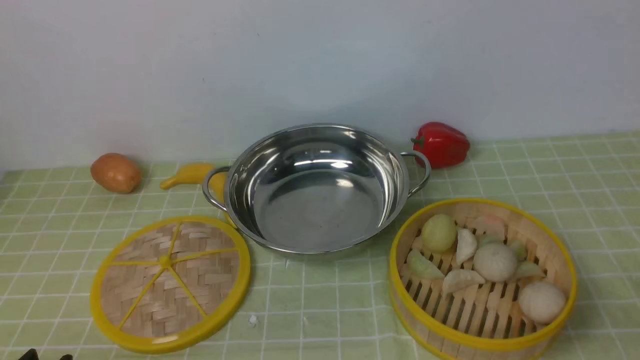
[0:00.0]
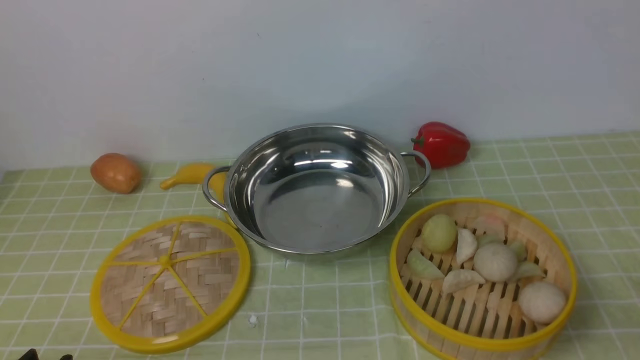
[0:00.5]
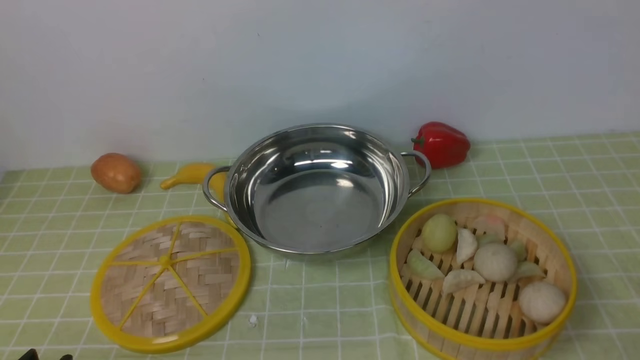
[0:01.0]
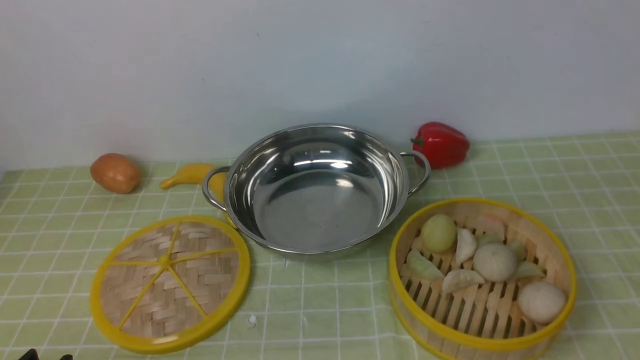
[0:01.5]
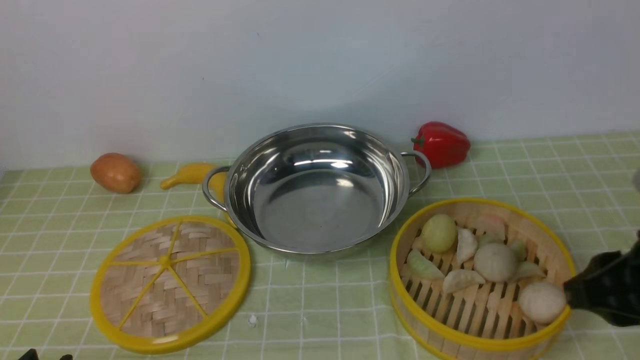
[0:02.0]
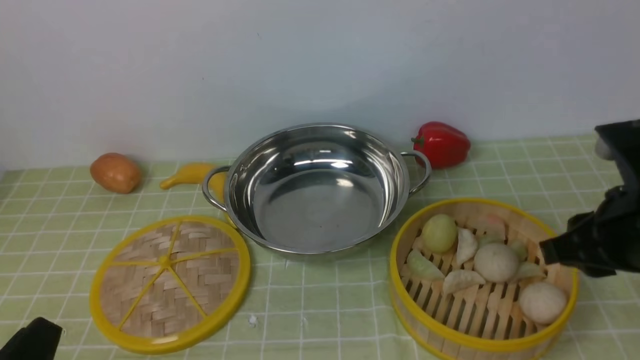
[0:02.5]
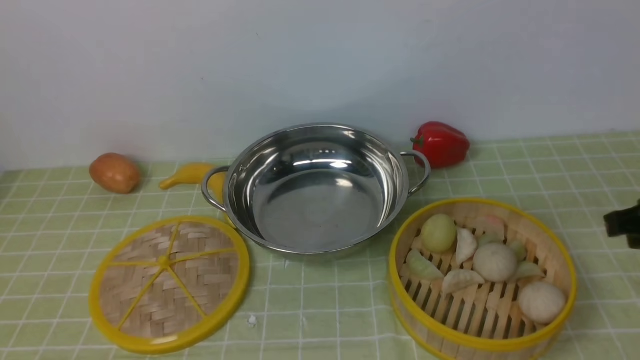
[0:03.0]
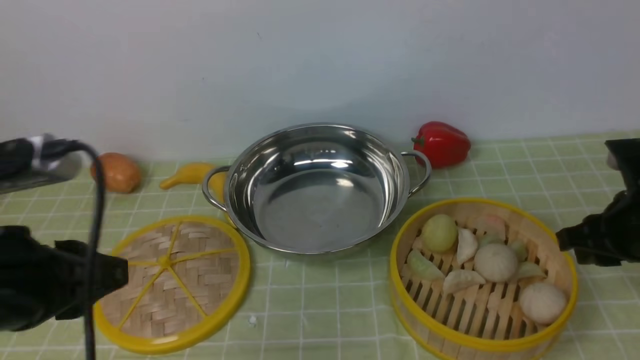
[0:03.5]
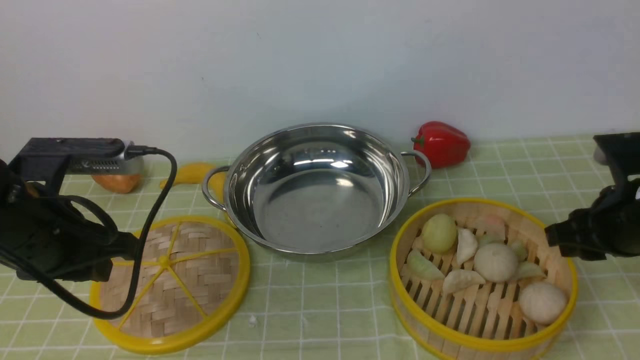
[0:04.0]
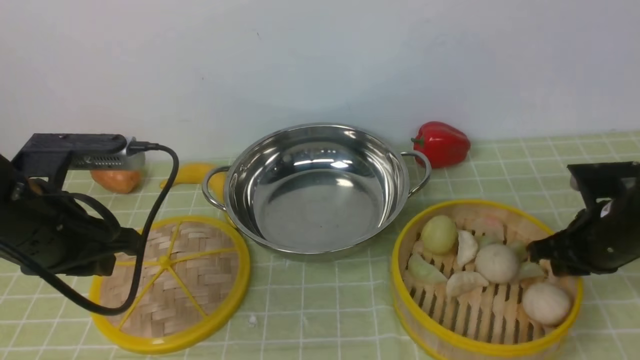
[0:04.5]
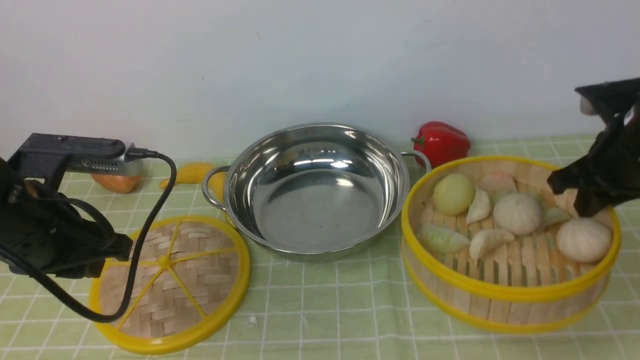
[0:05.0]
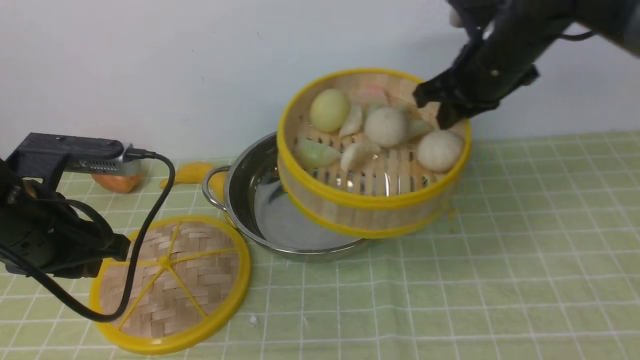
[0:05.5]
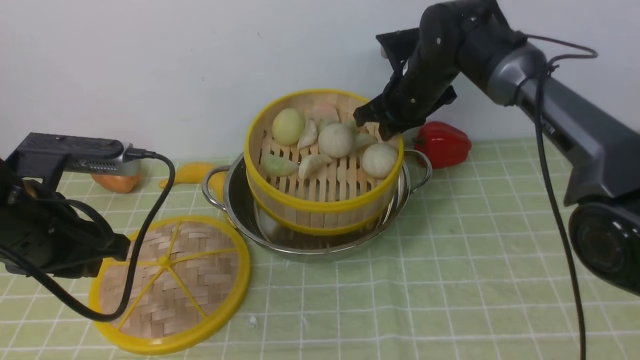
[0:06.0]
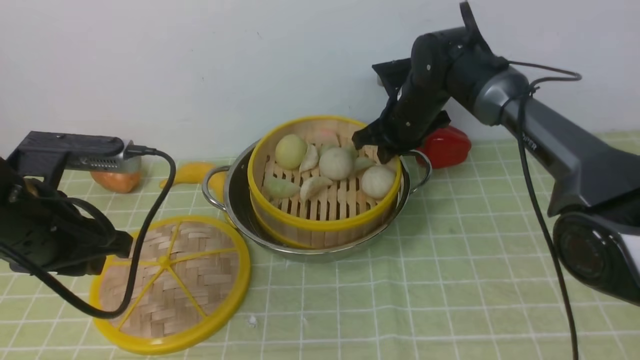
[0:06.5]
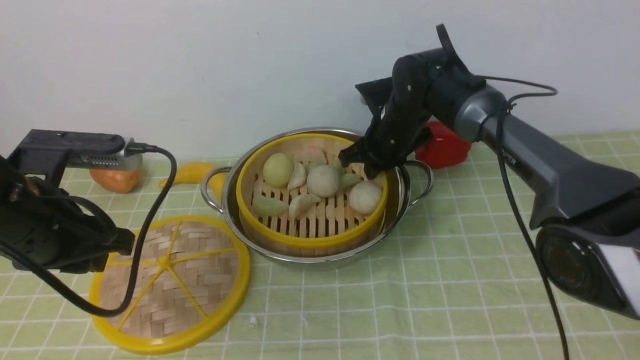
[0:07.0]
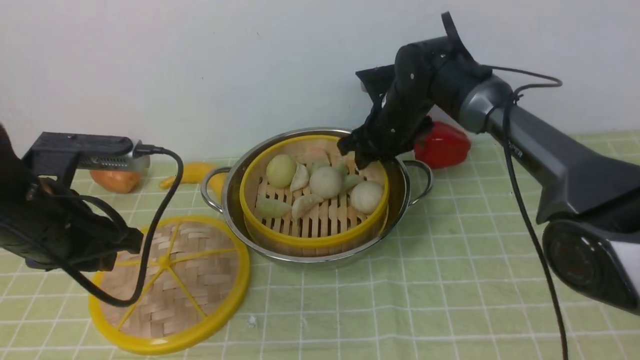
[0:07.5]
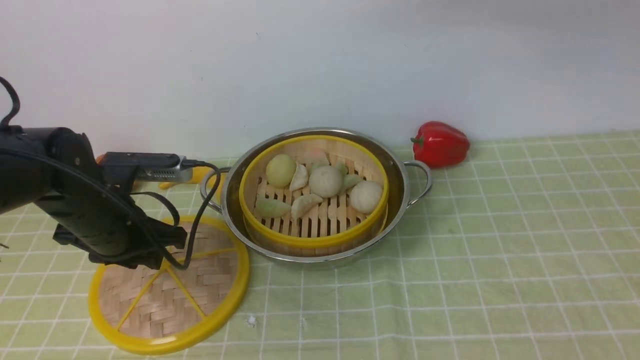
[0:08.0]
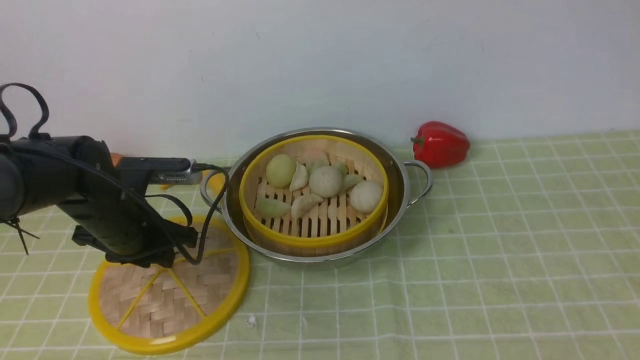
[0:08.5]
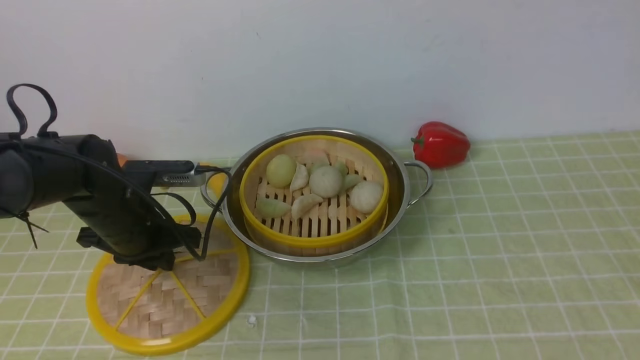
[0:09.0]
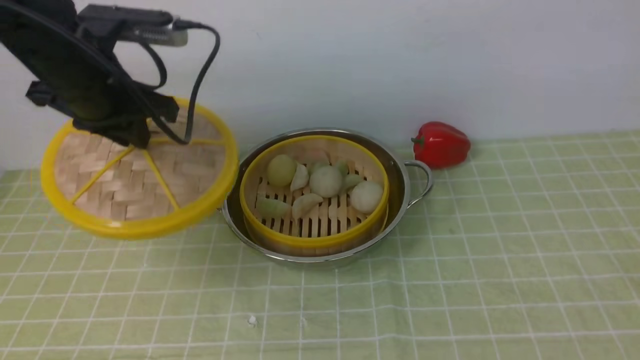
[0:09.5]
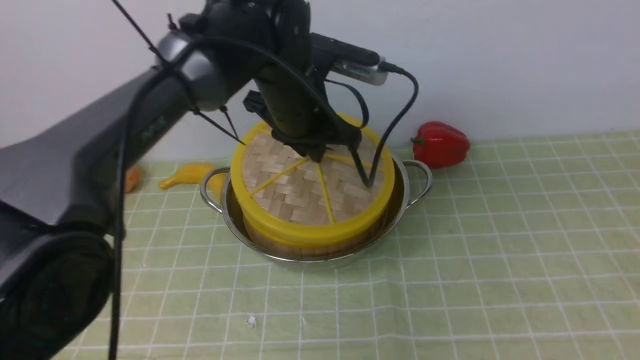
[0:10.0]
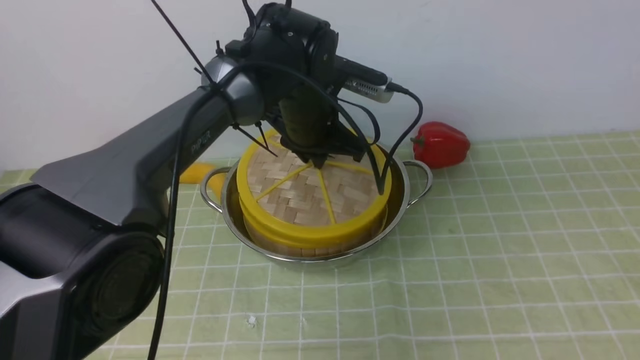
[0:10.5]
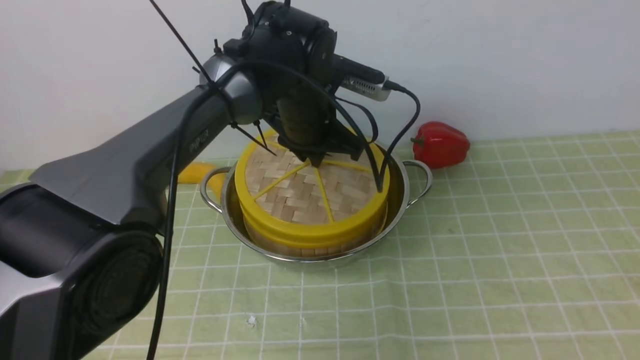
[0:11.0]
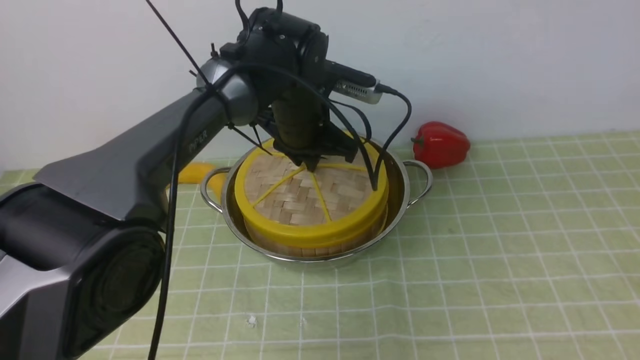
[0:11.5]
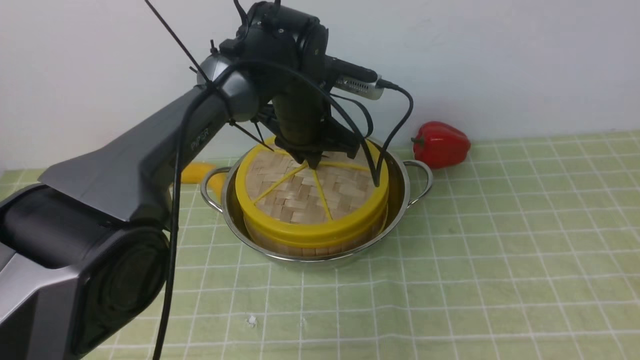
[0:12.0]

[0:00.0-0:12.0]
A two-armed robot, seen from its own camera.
Task of the whole recording: place the steamer in the pot on the green tablecloth, and put the lid on the steamer.
Step, 0:00.0 to 0:05.0: use the right arm to lift the steamer closest to it.
Step, 0:05.5 to 0:08.0: use the right arm to put the steamer into the iron steamer pot in the middle.
Step, 0:08.5 to 0:09.5: use the left arm to lift the lid of the steamer.
0:02.0 to 0:04.0: The left gripper shifts roughly 20 cm forward and upward, while the right gripper heads forward and downward, covering some 15 cm.
0:04.0 to 0:06.0: The right gripper is displaced forward and to the left by some 25 cm, and closes its fingers.
0:06.0 to 0:08.0: The left gripper heads downward and forward, covering some 10 cm; the right gripper moves upward, approximately 15 cm, and opens its fingers.
0:08.0 to 0:10.0: The left gripper moves to the right, forward and upward, about 20 cm. Meanwhile the right gripper is displaced backward and to the right by roughly 35 cm.
0:10.0 to 0:12.0: The left gripper heads downward, covering about 5 cm.

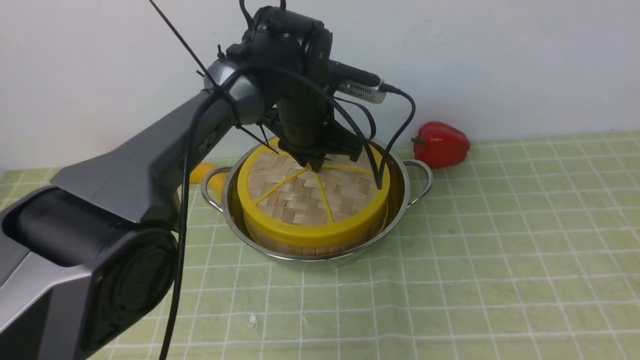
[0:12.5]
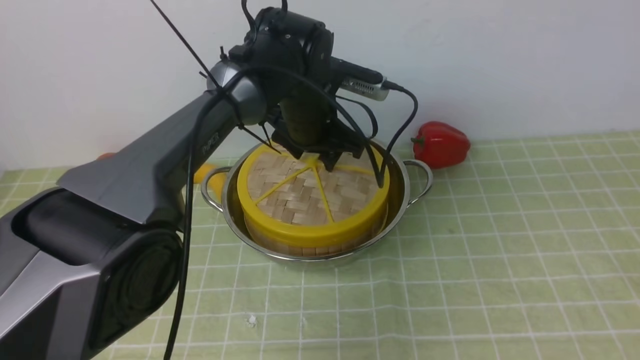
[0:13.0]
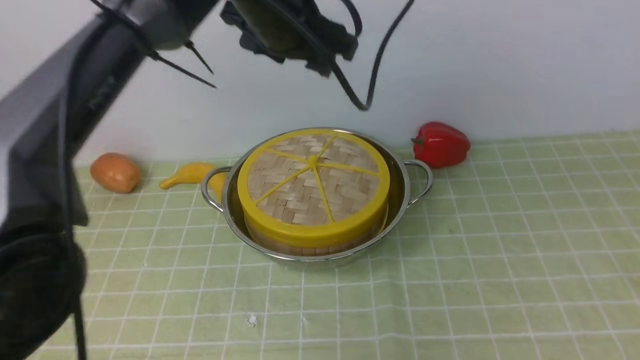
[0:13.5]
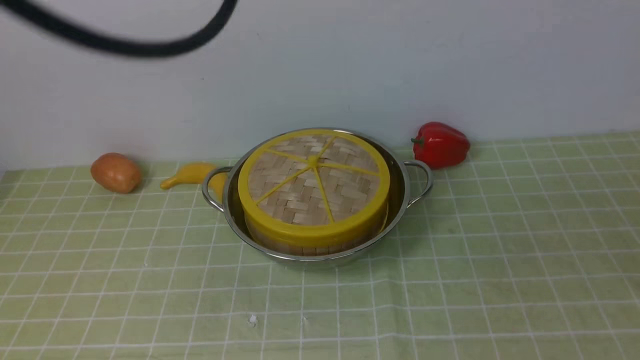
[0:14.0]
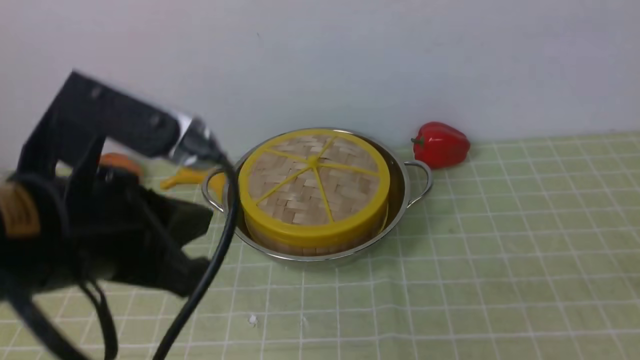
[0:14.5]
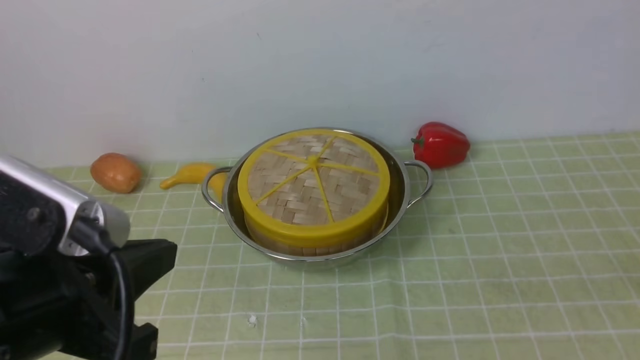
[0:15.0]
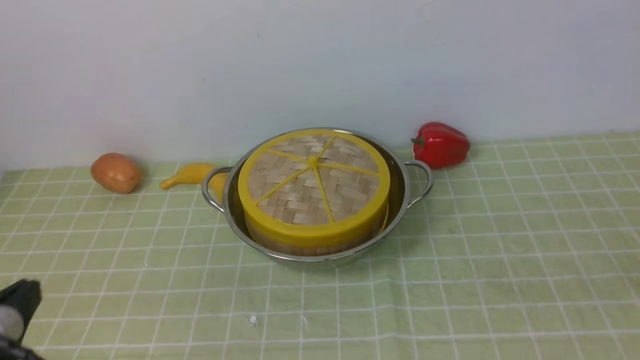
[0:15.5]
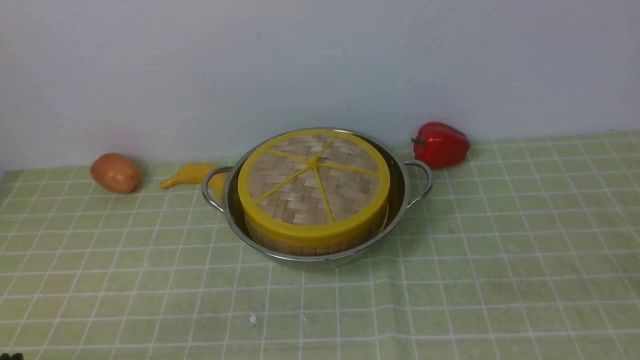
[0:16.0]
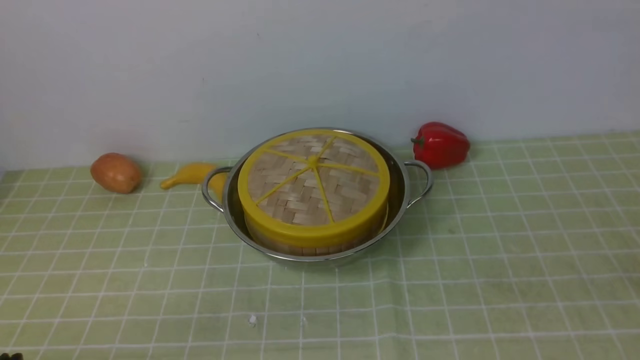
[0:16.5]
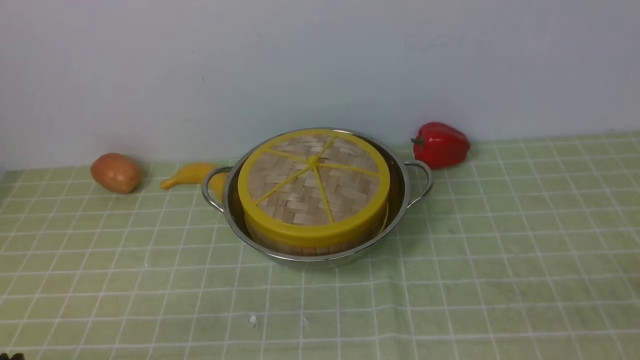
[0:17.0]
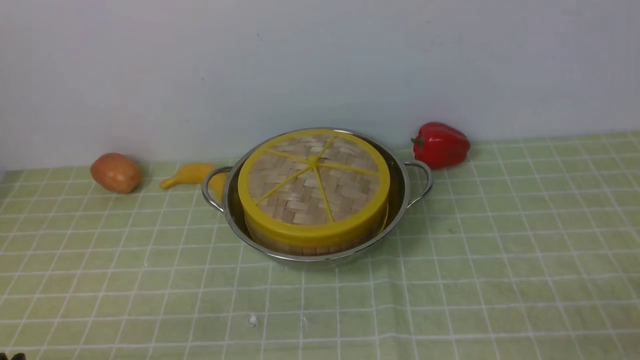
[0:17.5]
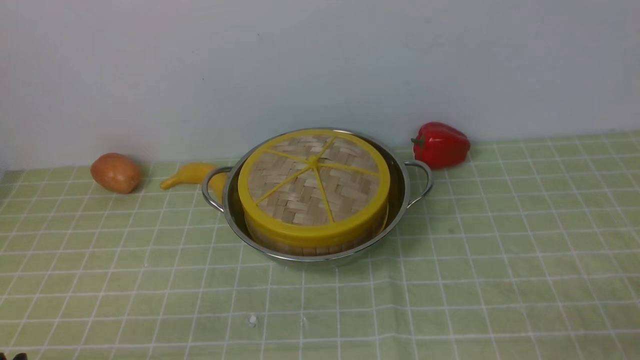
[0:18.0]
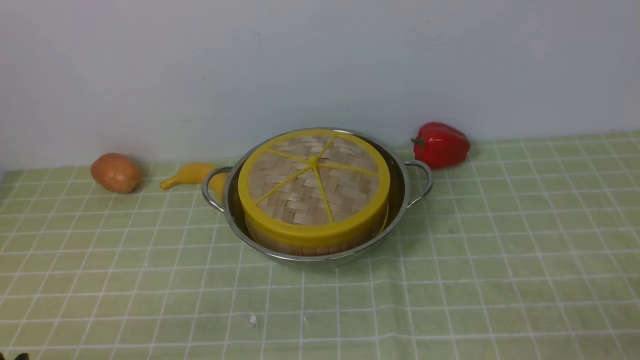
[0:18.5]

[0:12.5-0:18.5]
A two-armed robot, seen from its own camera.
Task of the whole recording: place the steamer in the pot on the green tablecloth, and put the lid on the steamer.
0:12.5 to 0:14.5: The left gripper is displaced backward, upward and to the left by approximately 35 cm, and opens, then closes once more. Meanwhile the right gripper shifts some 15 cm downward and backward, and closes.
0:14.5 to 0:16.5: The right gripper opens its fingers. Meanwhile the left gripper goes roughly 25 cm downward, backward and to the left.
